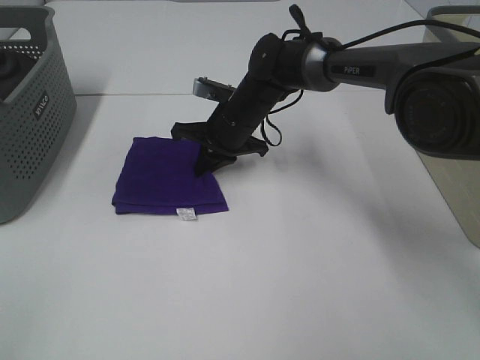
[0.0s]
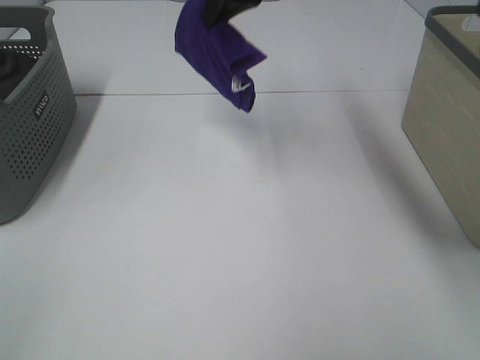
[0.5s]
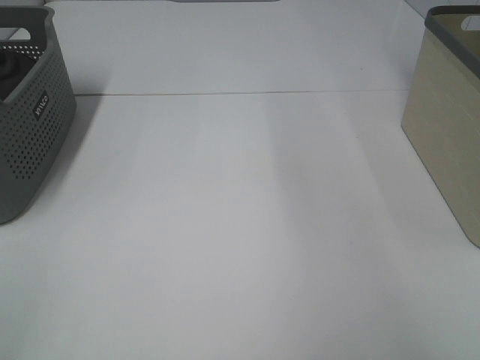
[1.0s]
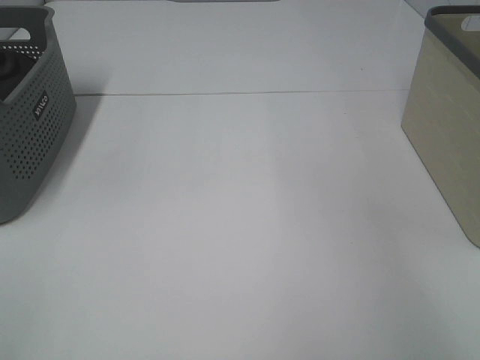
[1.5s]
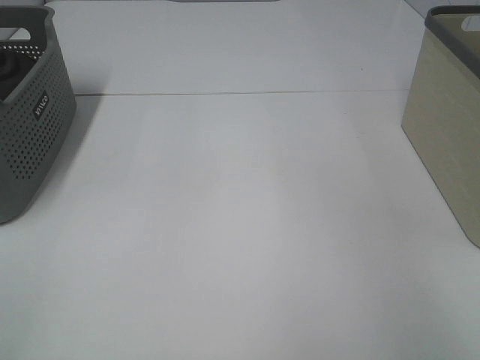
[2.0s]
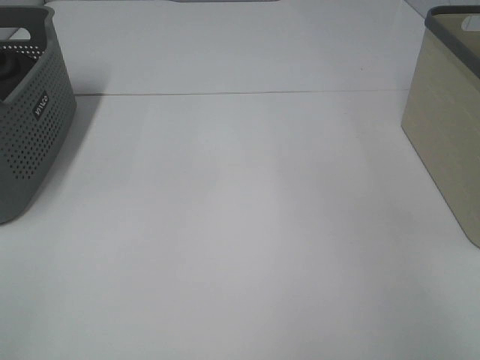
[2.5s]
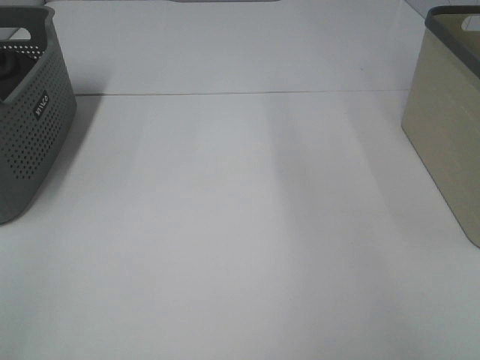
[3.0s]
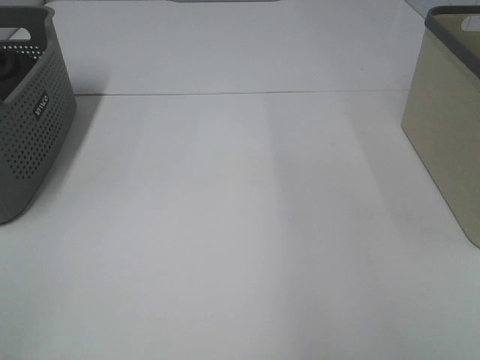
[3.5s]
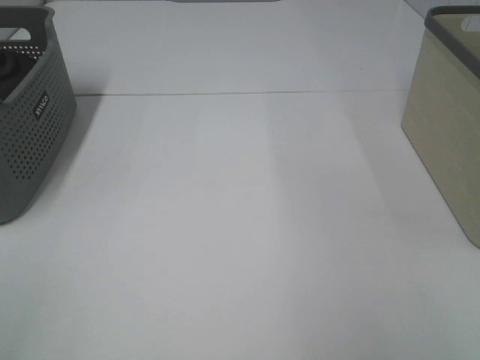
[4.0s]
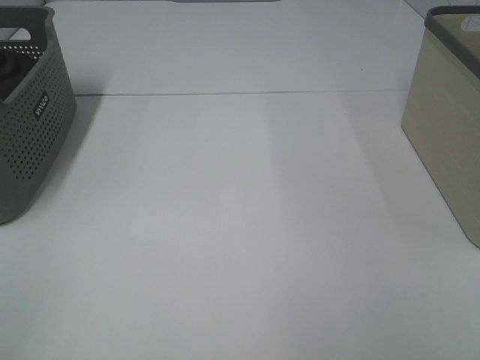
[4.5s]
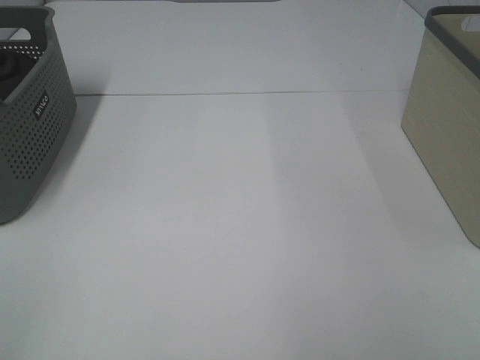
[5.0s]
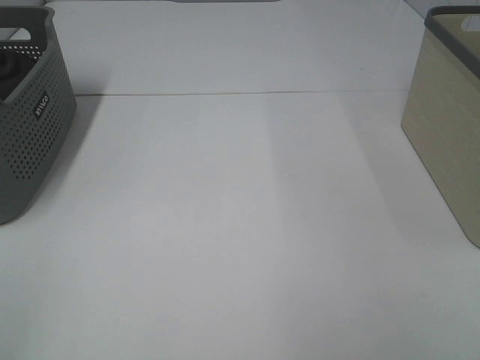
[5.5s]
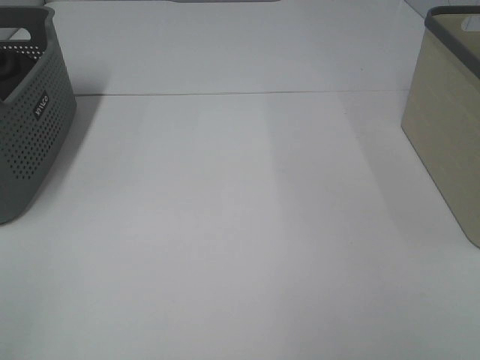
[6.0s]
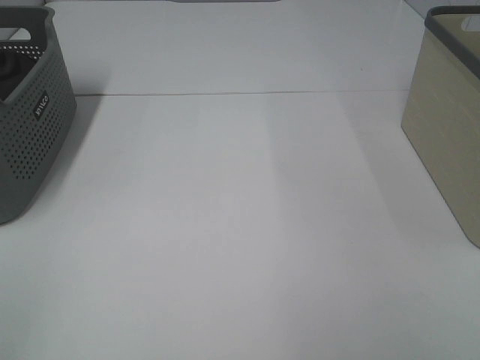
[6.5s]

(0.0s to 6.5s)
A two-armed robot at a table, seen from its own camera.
Step, 0.0s - 2.0s: Right hand: place the purple towel in right basket.
0.0s - 2.0s: The right gripper heads to the right and upward, covering approximately 50 cm, and opens up.

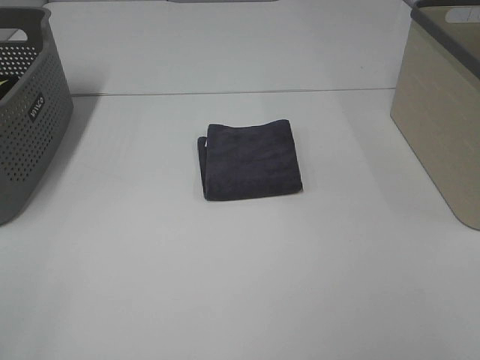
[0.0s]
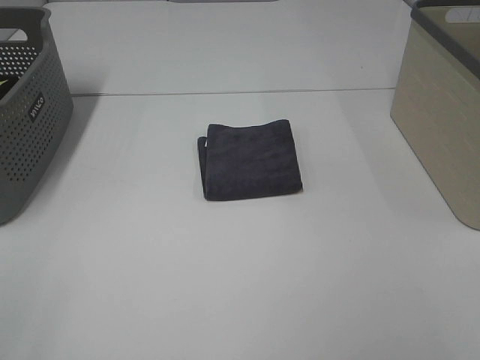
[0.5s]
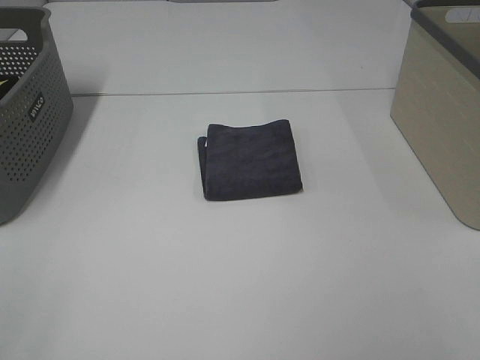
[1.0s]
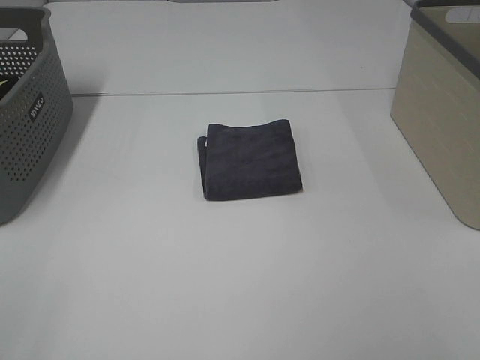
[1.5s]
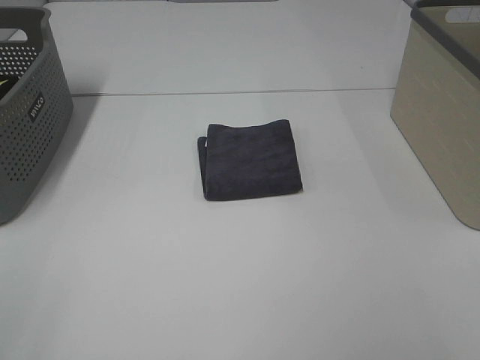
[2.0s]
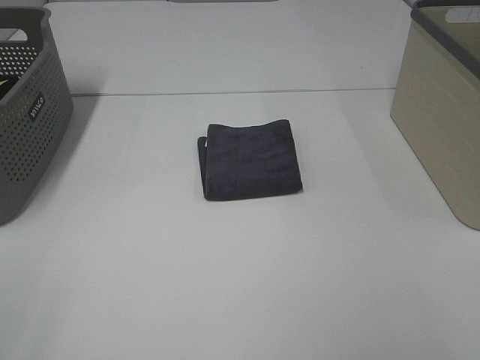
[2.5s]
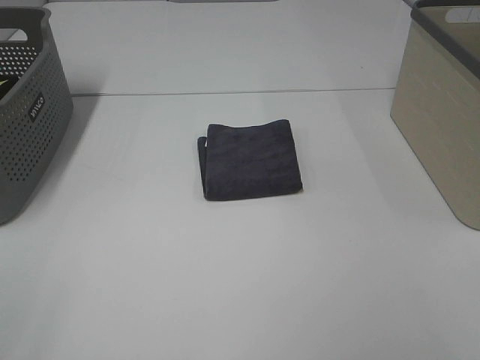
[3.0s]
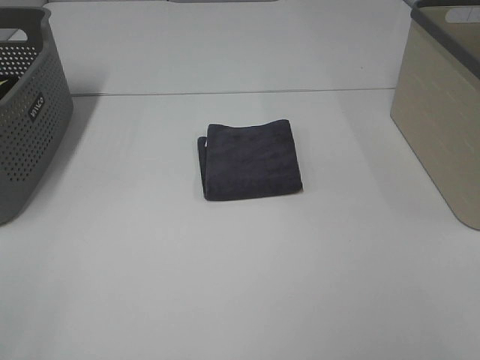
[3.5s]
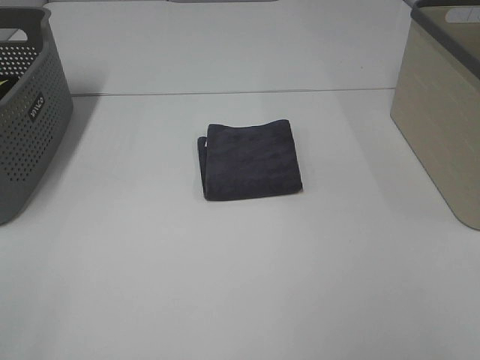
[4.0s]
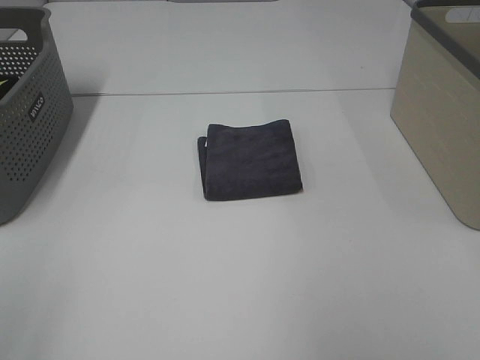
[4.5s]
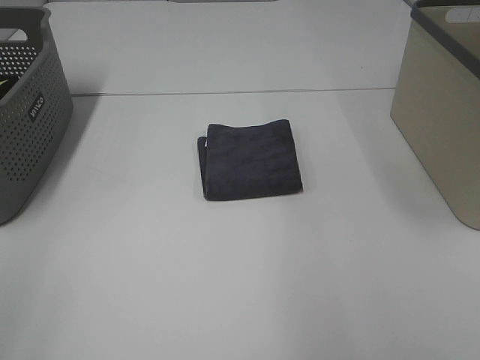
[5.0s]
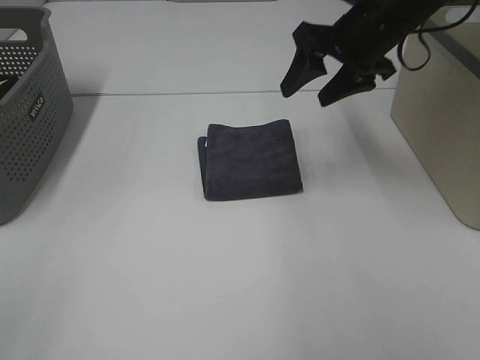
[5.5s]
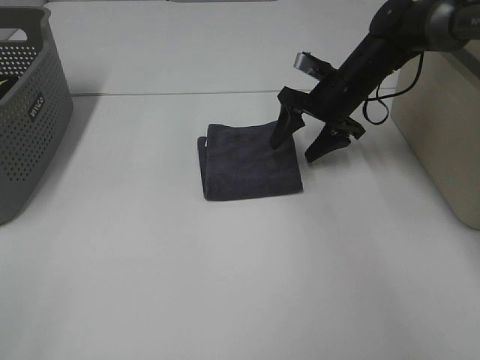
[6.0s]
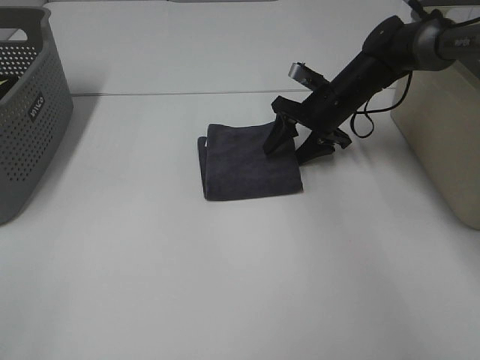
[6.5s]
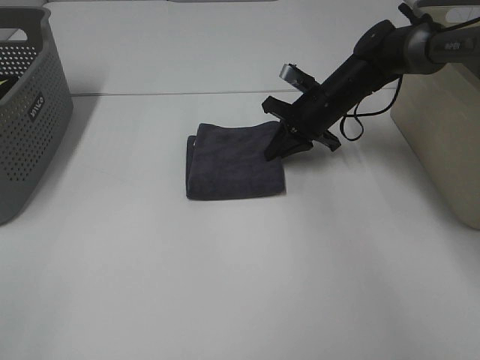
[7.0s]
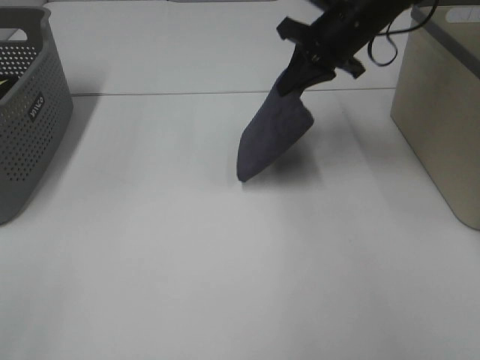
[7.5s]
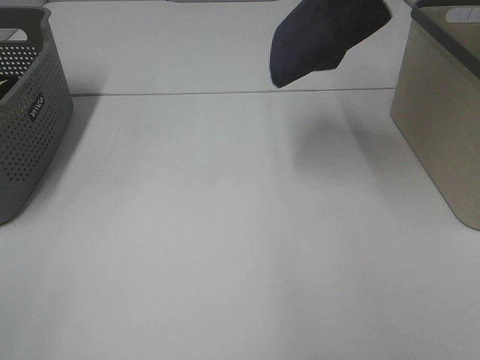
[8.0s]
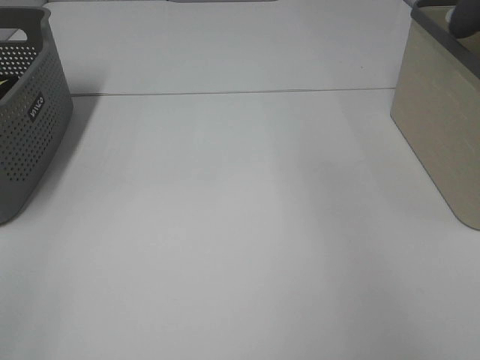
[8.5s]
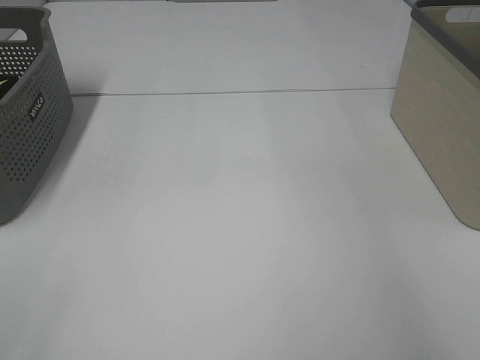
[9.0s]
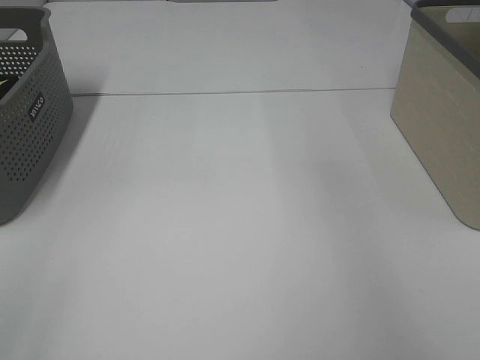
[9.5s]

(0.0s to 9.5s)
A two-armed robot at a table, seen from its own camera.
Step, 0.0s - 6.5s: Right hand: grab the folded grey towel.
Step, 7.0s - 9.0s: Right hand: place the grey towel in right basket.
0.0s - 2.0s: Both grippers stay about where they are.
4.0s - 5.5s: The right gripper goes roughly 40 cm forward.
5.5s - 7.5s: The right gripper moves approximately 15 cm downward and comes back, and closes up.
7.5s - 9.5s: The right gripper shifts some 25 cm to the right and upward, and opens up.
